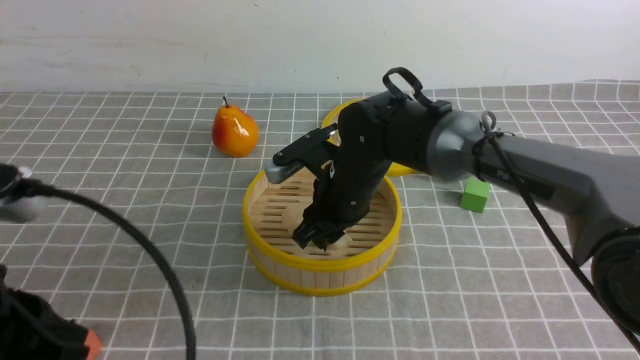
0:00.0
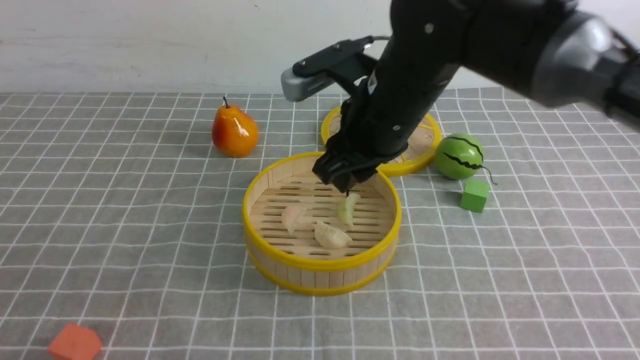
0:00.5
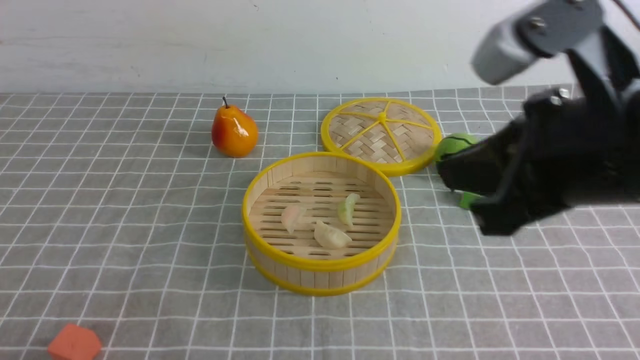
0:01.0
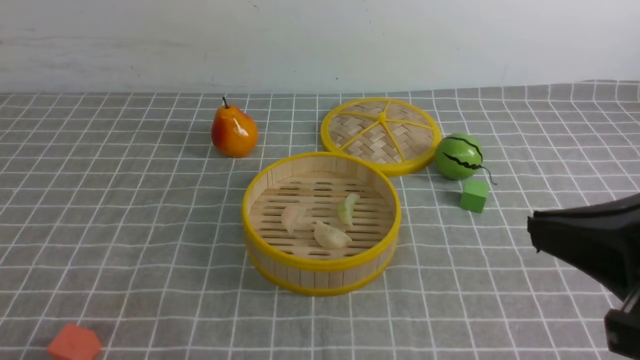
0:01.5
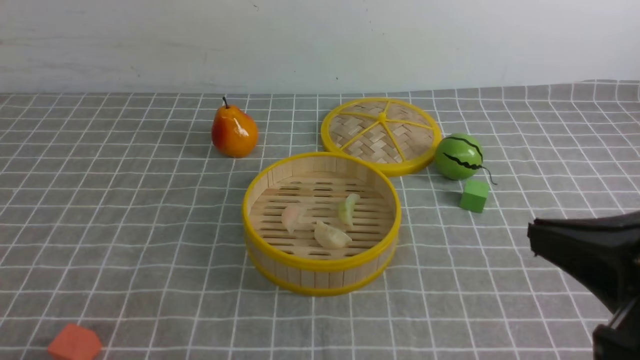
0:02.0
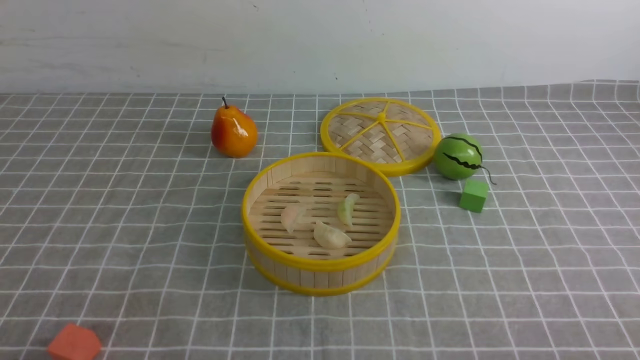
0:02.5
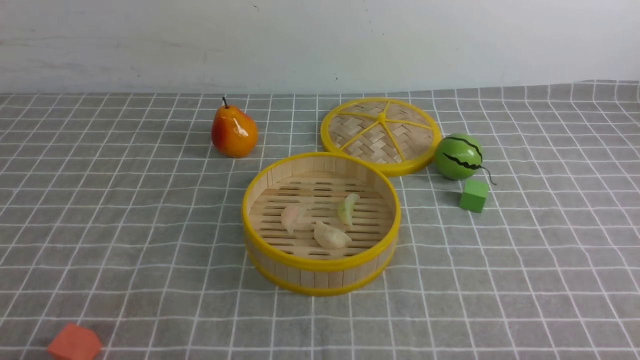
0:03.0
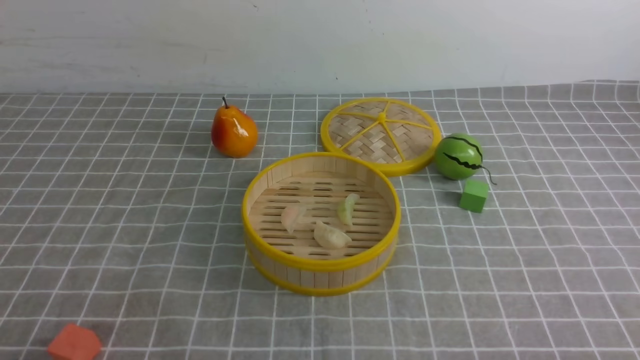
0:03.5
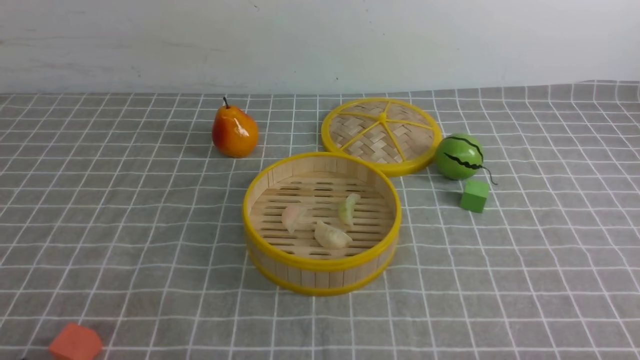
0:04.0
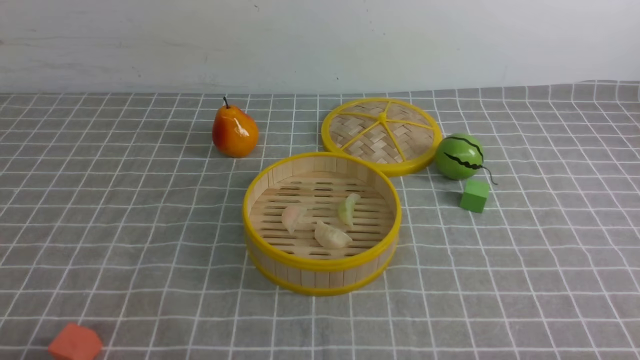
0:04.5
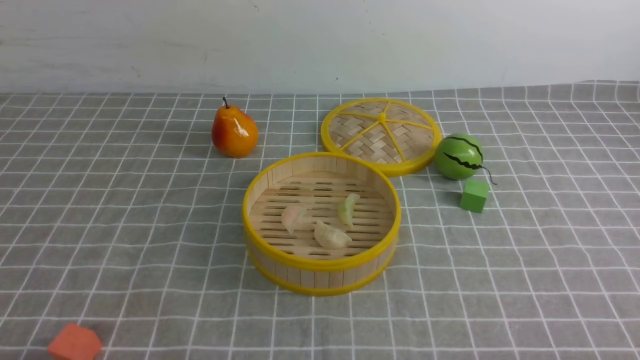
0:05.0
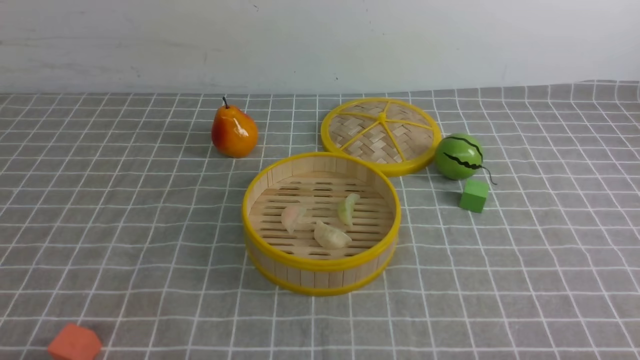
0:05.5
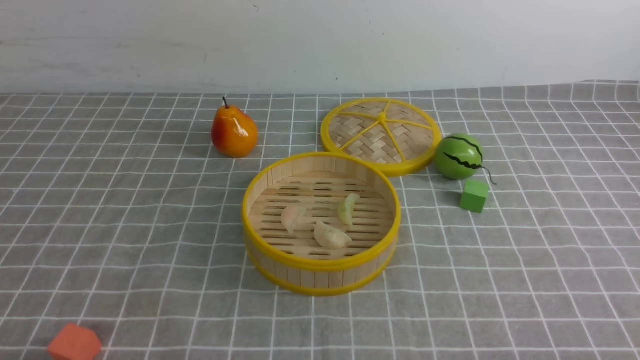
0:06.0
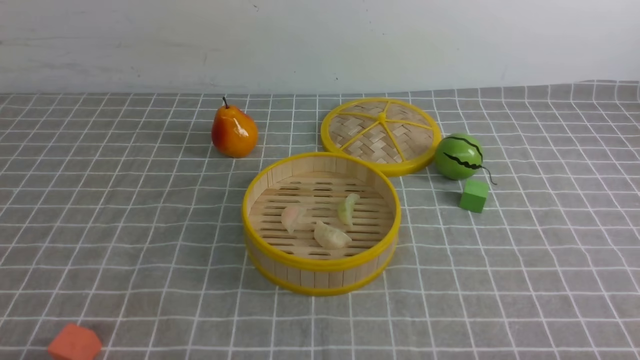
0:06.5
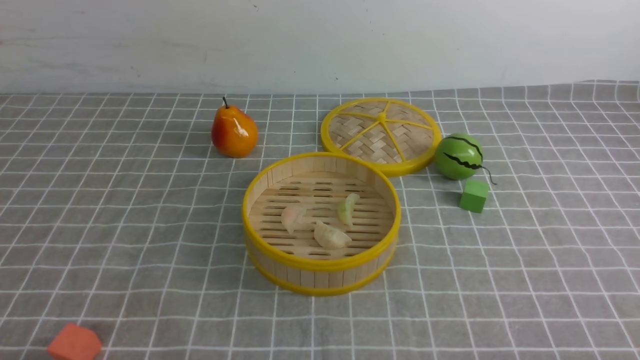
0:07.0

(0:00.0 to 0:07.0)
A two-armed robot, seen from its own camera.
Task of the whole recording: put the dumplings into the steamer on the table with the grey tablecloth.
0:00.0 - 0:02.0: The right gripper heads backward, to the right and upward, covering about 35 cm, and closes its fingers, while the left gripper goes roughly 10 cm backward and downward.
0:02.0 - 0:03.5: The right gripper shifts roughly 15 cm downward and to the right.
0:05.0 - 0:07.0: Both grippers stay about where they are.
